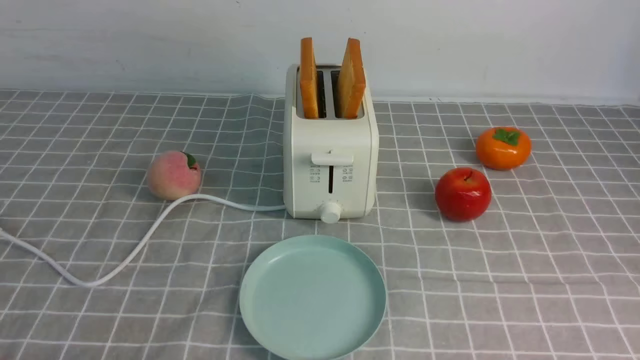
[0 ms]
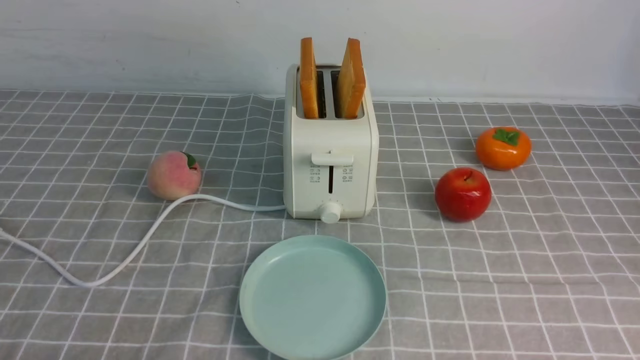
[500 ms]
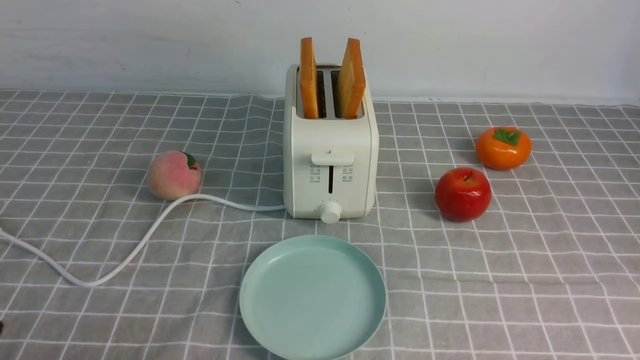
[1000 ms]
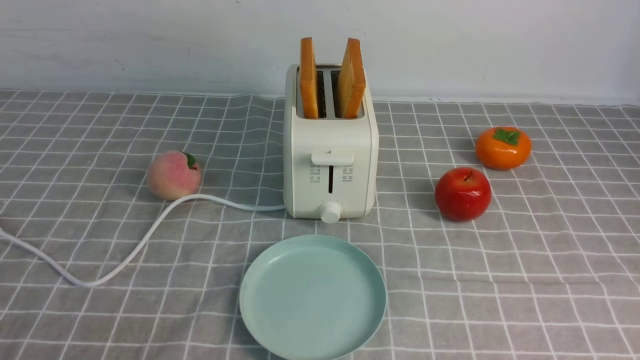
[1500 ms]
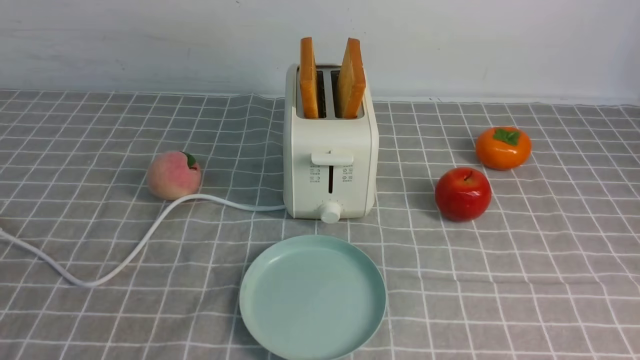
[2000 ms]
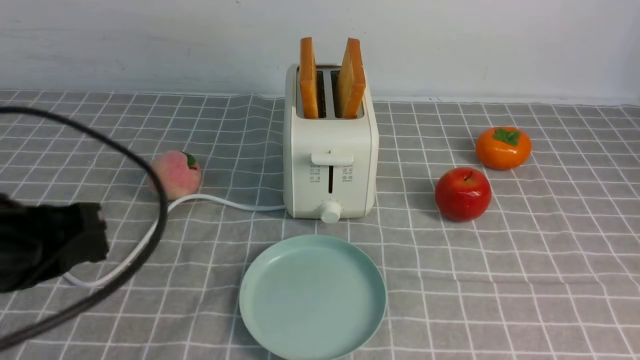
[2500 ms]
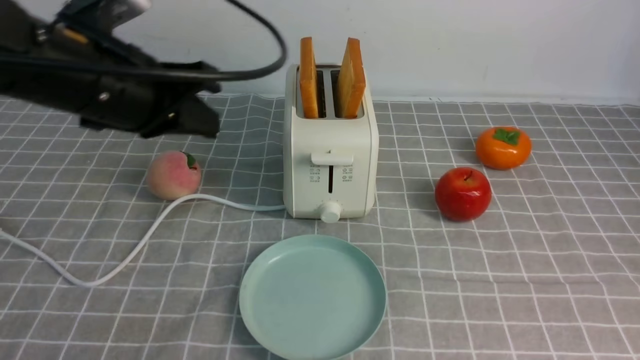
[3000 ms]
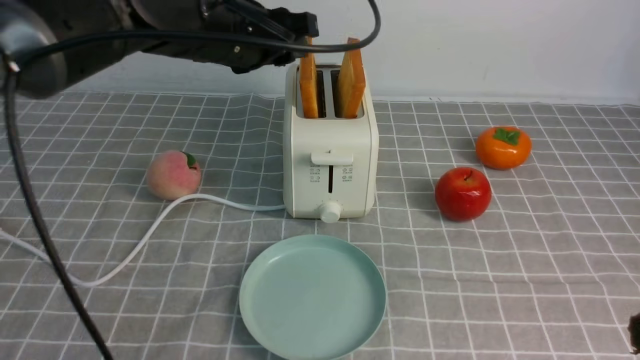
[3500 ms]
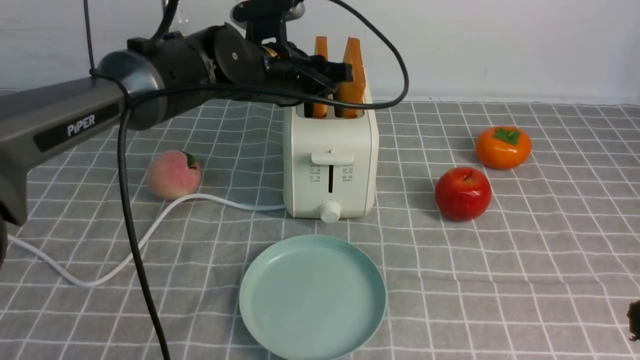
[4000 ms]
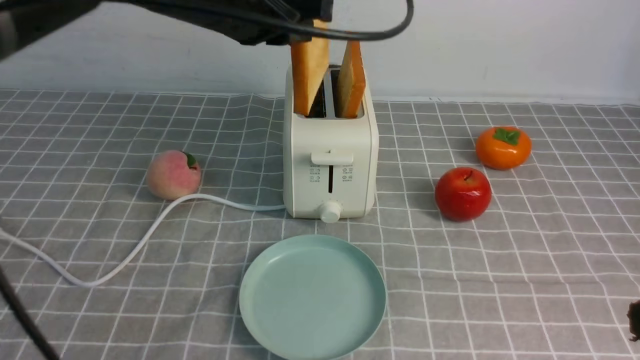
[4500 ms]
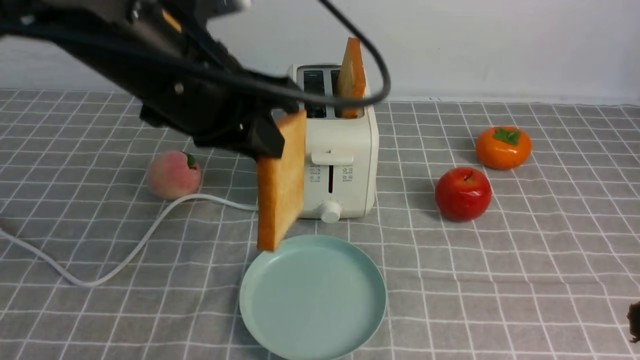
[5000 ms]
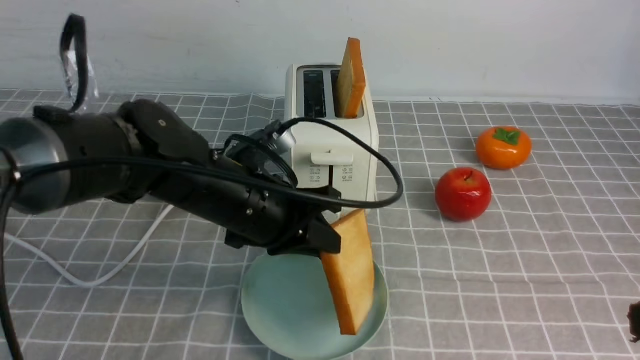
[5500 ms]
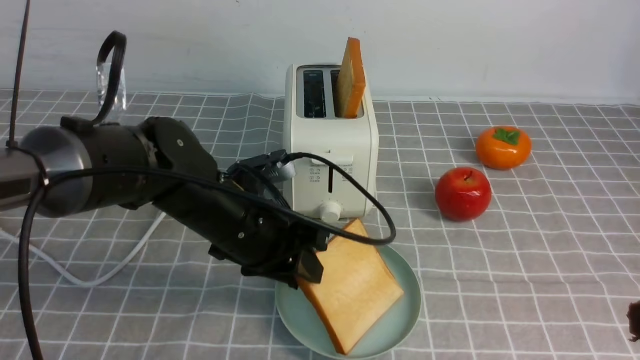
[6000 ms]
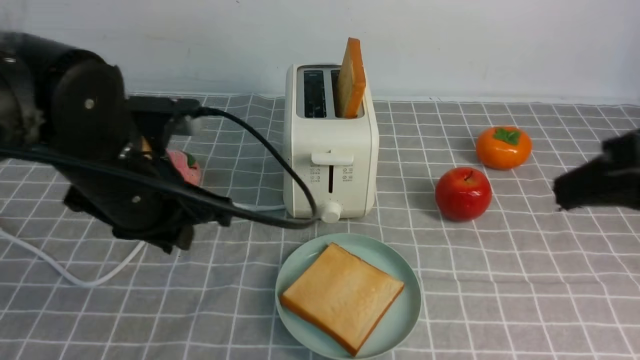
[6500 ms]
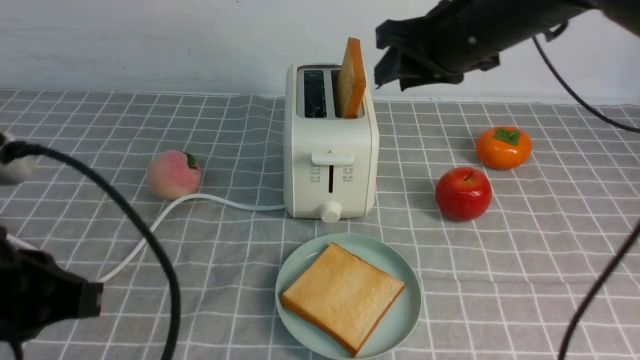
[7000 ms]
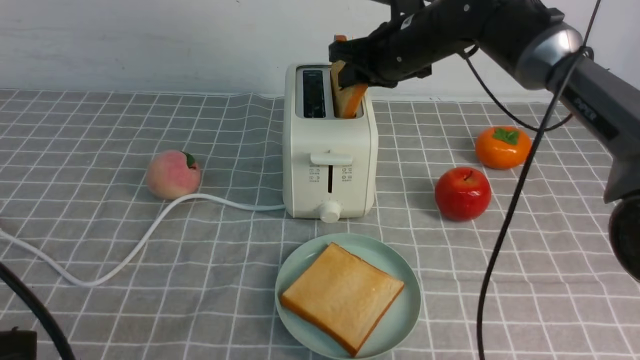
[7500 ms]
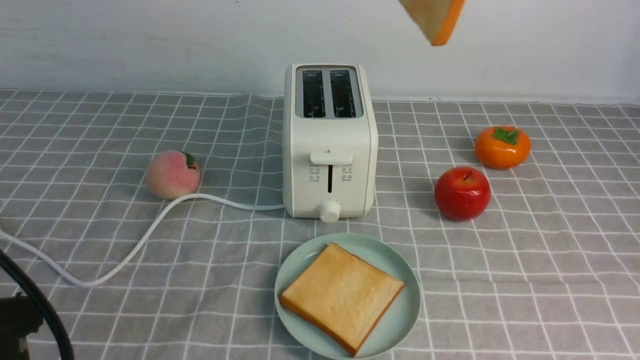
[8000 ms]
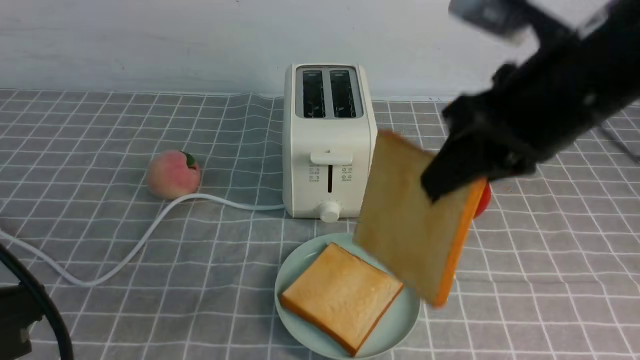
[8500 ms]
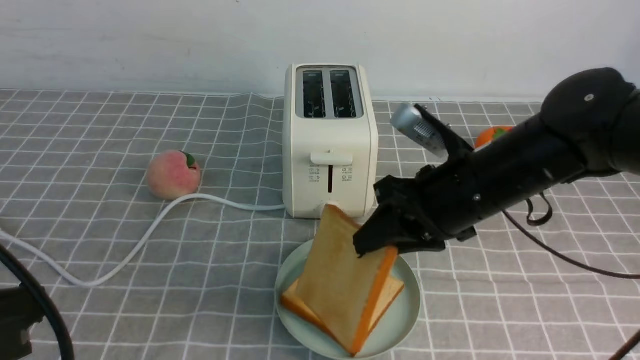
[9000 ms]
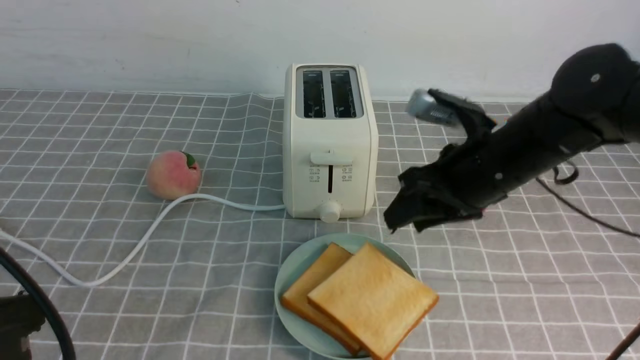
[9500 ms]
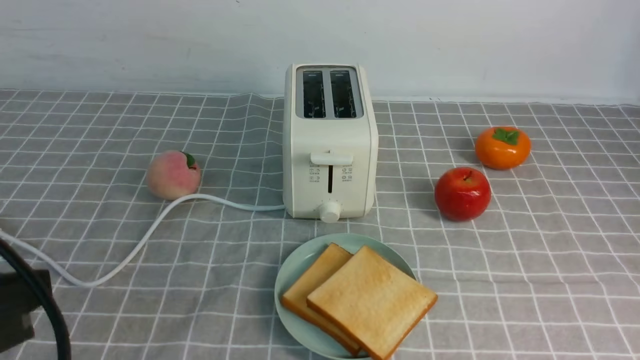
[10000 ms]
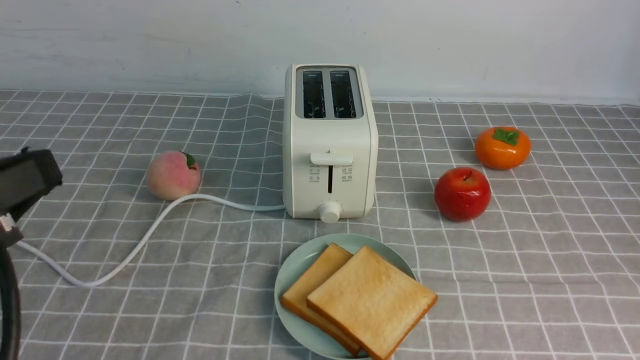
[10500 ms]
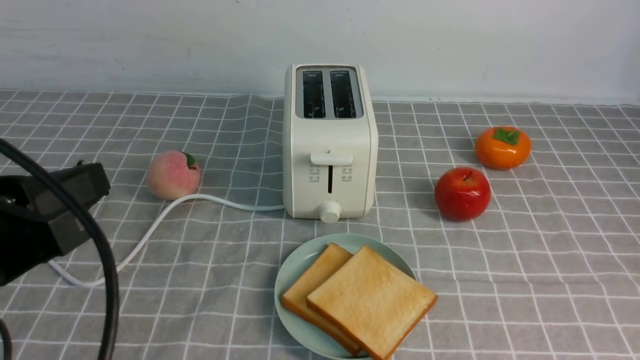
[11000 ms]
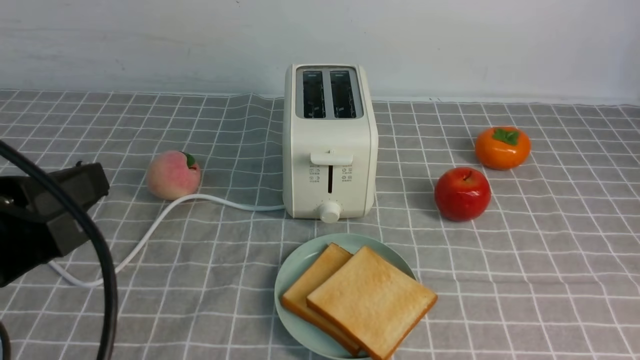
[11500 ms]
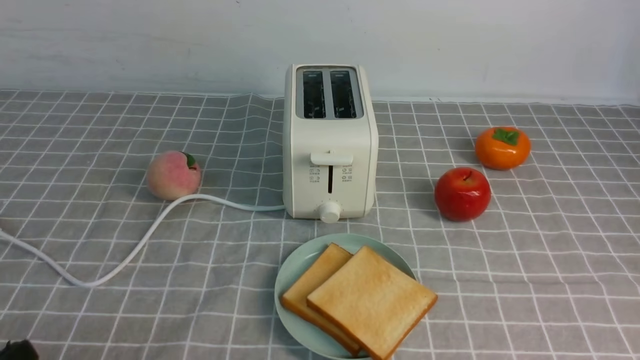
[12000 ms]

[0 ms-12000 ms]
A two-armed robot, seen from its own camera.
Task of the whole recording: take toasted bread from bread machine on grey coffee table place on plate.
Step, 0 ms to 4000 ms: use the left arm to take out a slice of bread.
Step, 4500 ms to 6000 ms: use the left arm to put a slice of bread into the empty plate.
Step, 6500 ms to 7500 ms: use the right arm to take out a slice of bread.
Step, 8000 ms to 9500 ms: use the right arm to put a slice of bread into the plate.
2000 ms to 4000 ms: The left gripper goes approximately 40 cm forward and to the right, and opens its fingers; the right gripper travels upward and forward by roughly 10 cm, and closes its fingers.
4000 ms to 6000 ms: The left gripper moves backward and downward, about 15 cm, and closes and opens again.
6000 ms to 8000 ms: The right gripper moves forward, upward and to the left, some 30 cm, and opens and closes again; the left gripper heads backward, to the left and upward, covering roughly 30 cm, and closes its fingers.
8000 ms to 10000 ms: The right gripper goes roughly 15 cm backward and to the right, moves approximately 25 cm downward and comes back, and opens, then closes again.
10000 ms to 12000 ms: The left gripper is displaced downward by about 10 cm.
